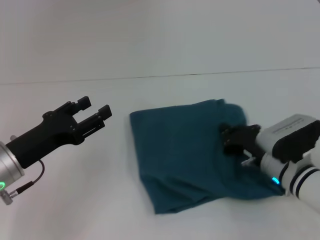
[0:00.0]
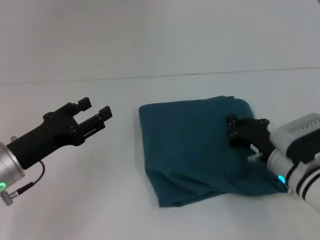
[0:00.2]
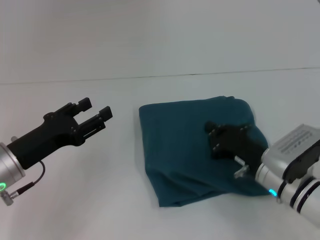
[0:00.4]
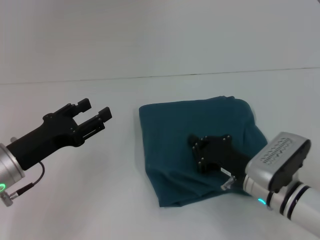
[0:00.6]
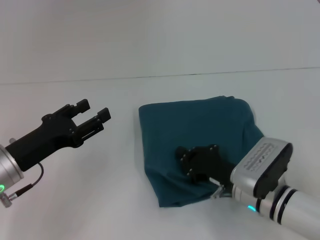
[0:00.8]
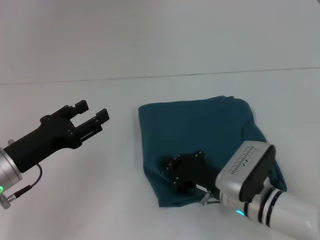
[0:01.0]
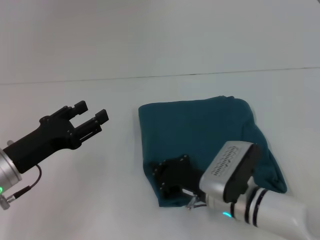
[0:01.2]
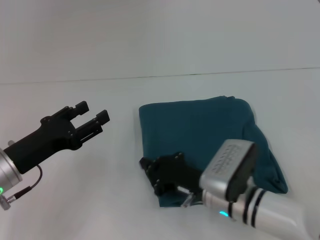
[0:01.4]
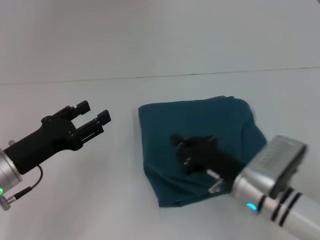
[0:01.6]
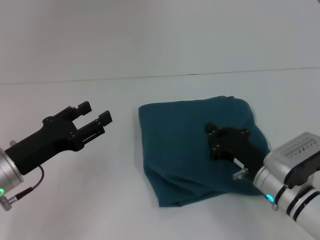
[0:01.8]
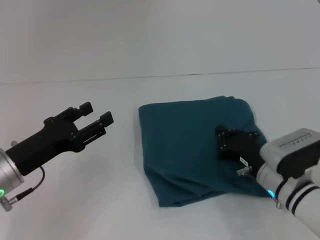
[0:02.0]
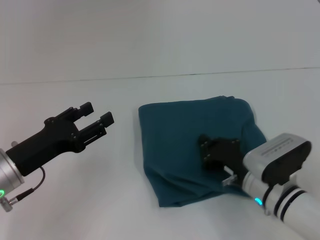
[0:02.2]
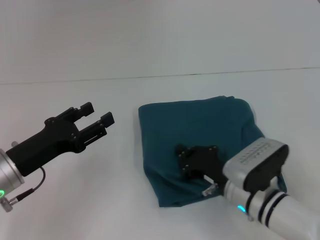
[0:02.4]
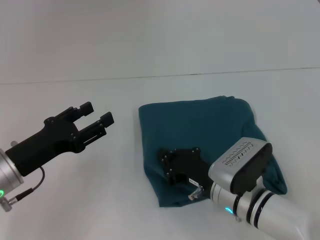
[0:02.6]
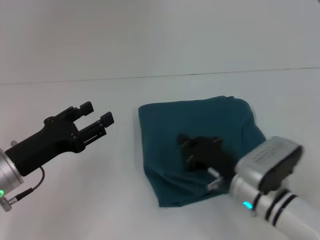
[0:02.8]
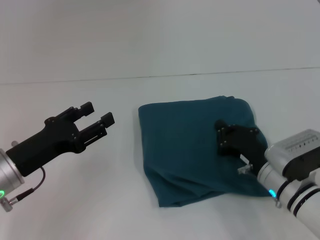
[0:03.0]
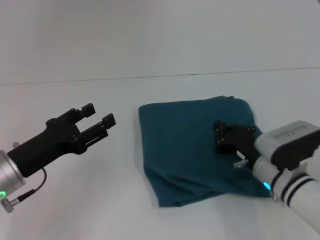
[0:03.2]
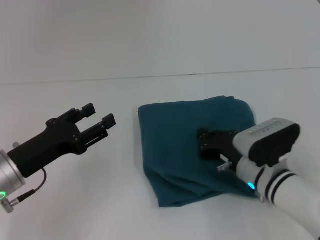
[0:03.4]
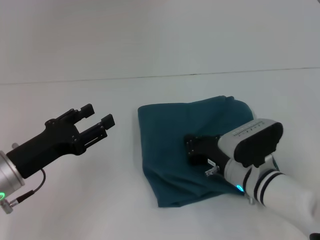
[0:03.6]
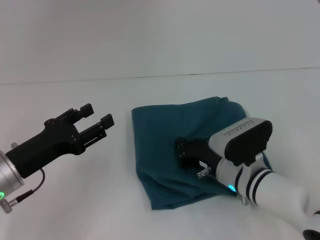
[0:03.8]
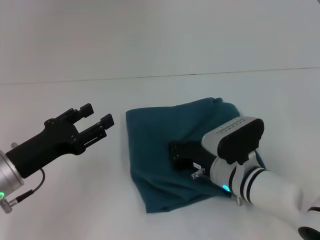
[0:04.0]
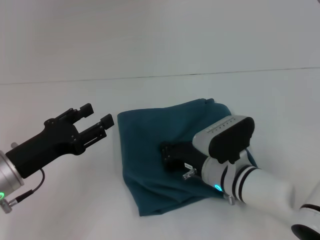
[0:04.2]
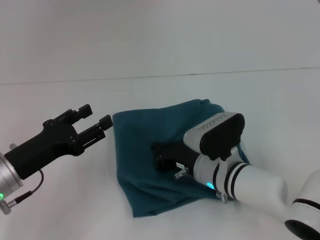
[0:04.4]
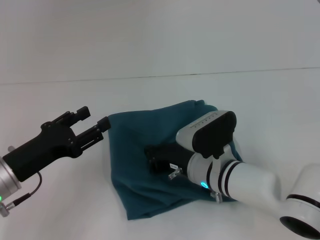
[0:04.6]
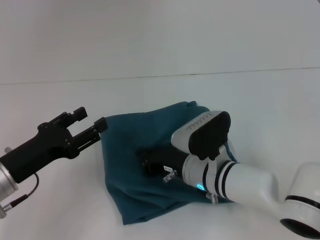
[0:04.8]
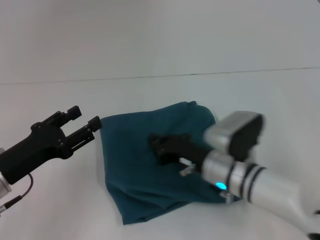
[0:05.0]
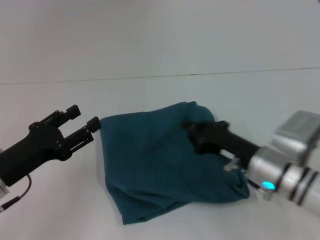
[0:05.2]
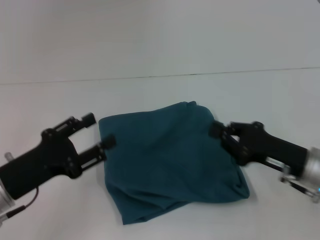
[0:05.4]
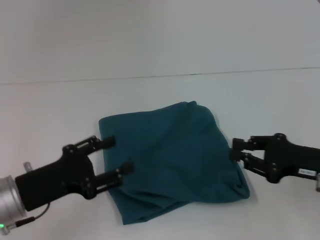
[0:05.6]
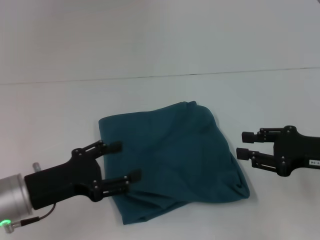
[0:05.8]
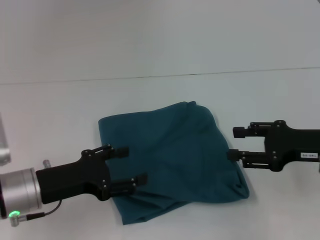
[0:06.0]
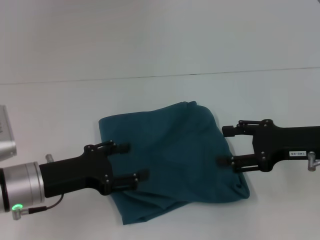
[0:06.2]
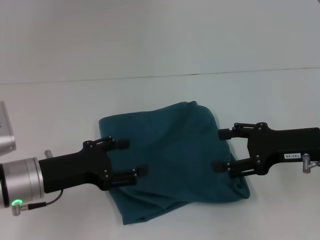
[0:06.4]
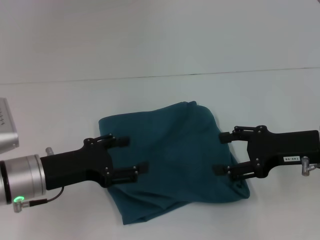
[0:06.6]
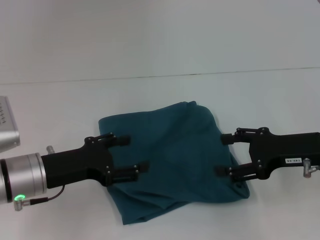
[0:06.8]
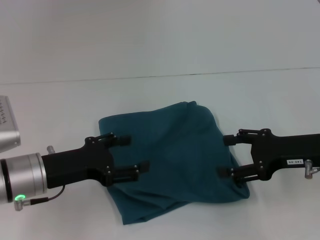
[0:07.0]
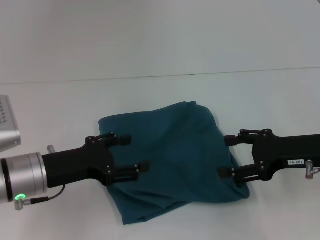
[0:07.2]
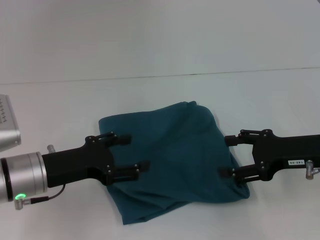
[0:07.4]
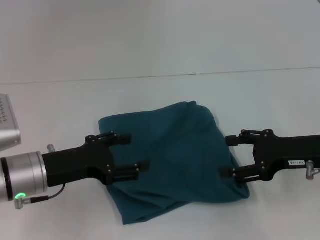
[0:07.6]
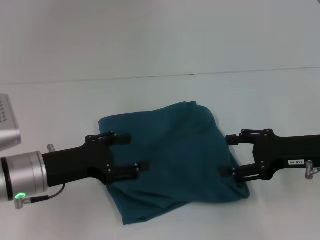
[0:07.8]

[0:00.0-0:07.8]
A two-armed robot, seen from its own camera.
0:00.0 to 0:01.6: The right gripper is displaced to the left by some 5 cm.
0:01.6 to 0:03.2: The right gripper moves left and right over about 5 cm, changing direction 2 times.
0:03.2 to 0:04.6: The right gripper moves to the left, some 10 cm.
0:04.6 to 0:06.2: The right gripper travels to the right and upward by some 20 cm, and opens.
0:06.2 to 0:07.8: Neither gripper changes place.

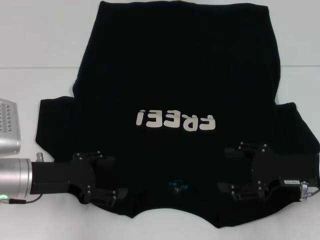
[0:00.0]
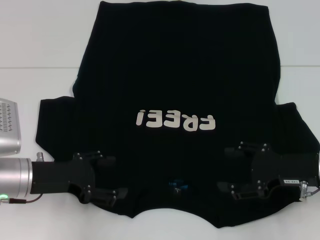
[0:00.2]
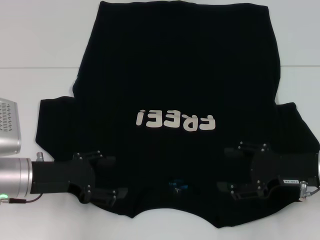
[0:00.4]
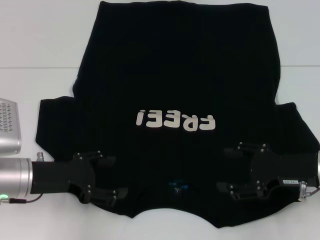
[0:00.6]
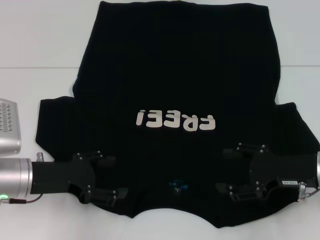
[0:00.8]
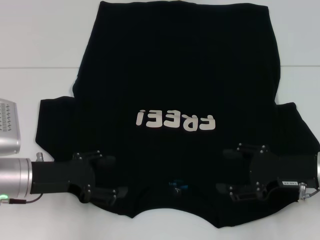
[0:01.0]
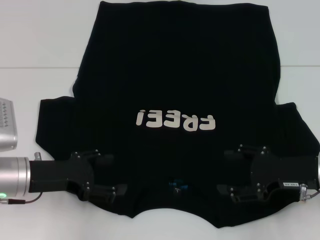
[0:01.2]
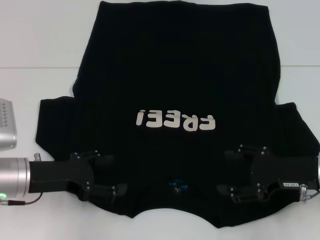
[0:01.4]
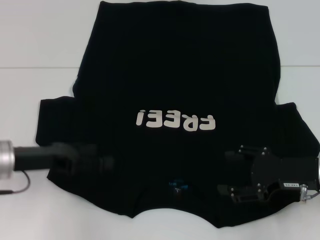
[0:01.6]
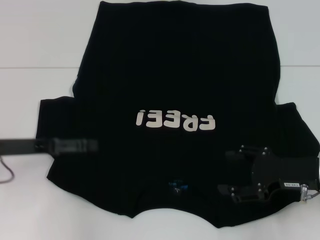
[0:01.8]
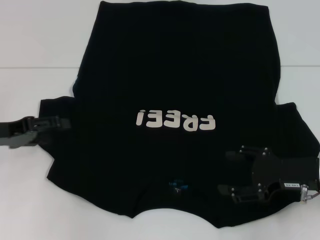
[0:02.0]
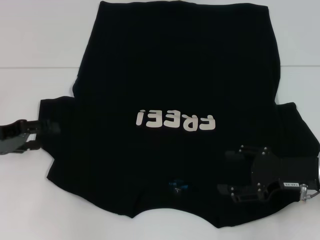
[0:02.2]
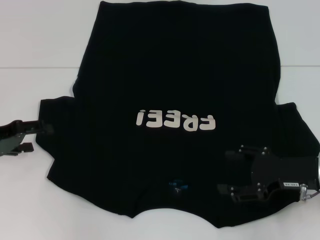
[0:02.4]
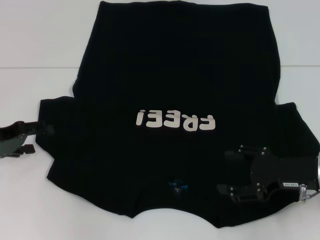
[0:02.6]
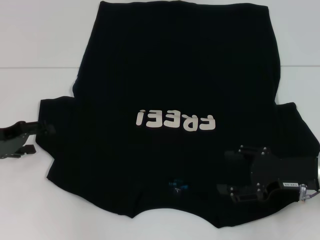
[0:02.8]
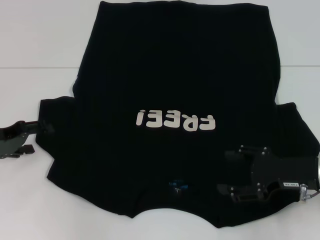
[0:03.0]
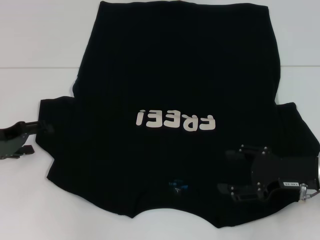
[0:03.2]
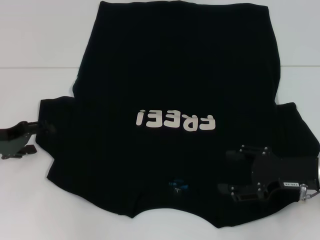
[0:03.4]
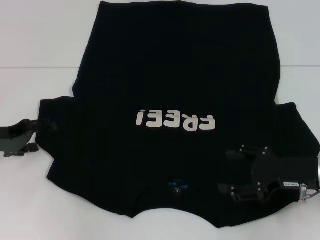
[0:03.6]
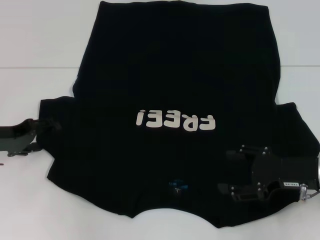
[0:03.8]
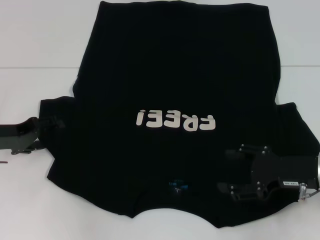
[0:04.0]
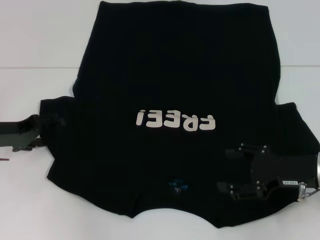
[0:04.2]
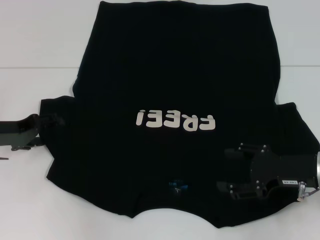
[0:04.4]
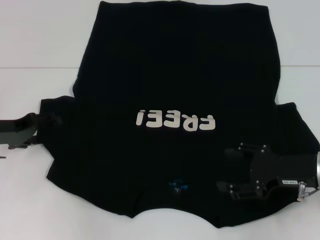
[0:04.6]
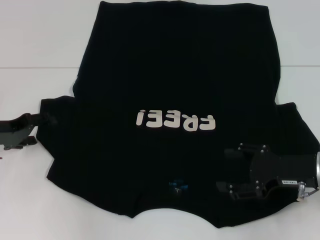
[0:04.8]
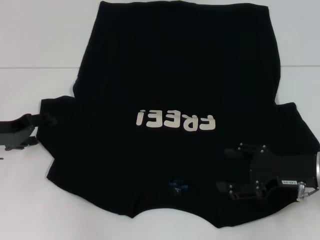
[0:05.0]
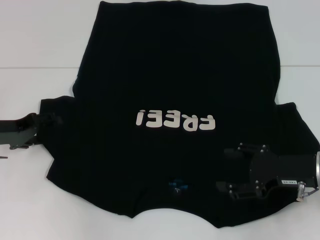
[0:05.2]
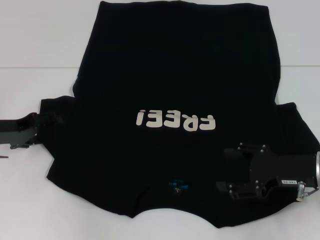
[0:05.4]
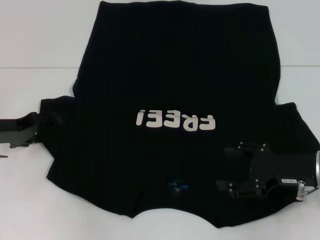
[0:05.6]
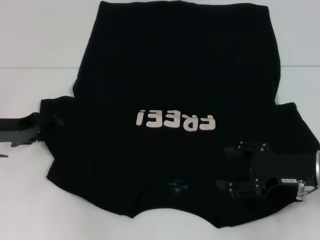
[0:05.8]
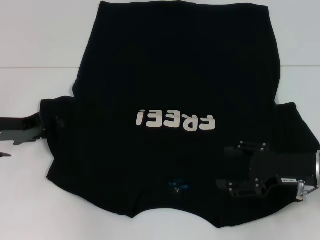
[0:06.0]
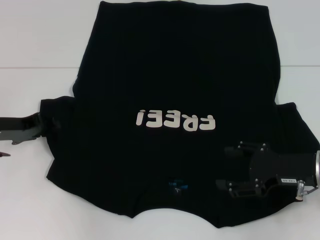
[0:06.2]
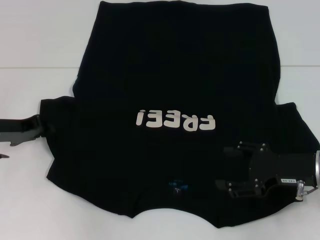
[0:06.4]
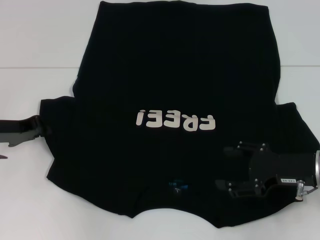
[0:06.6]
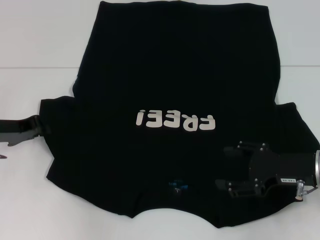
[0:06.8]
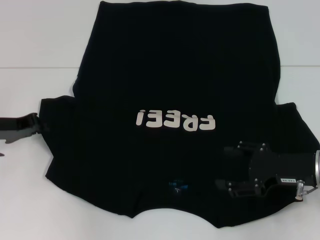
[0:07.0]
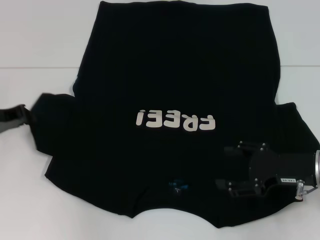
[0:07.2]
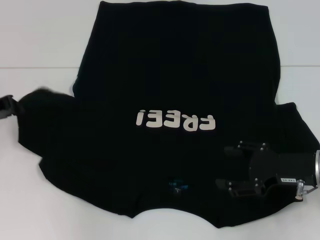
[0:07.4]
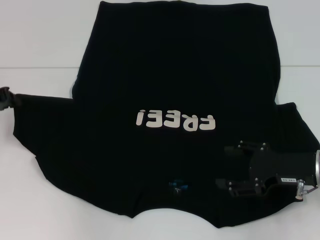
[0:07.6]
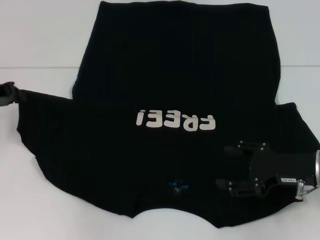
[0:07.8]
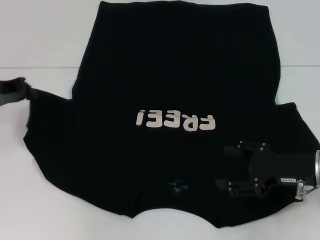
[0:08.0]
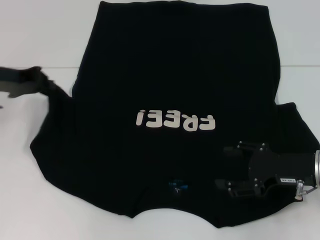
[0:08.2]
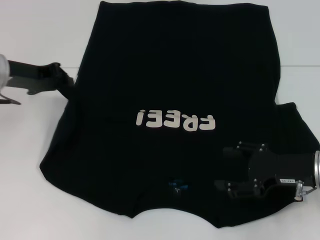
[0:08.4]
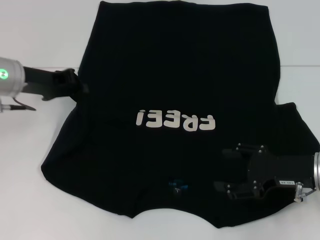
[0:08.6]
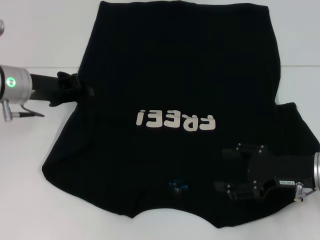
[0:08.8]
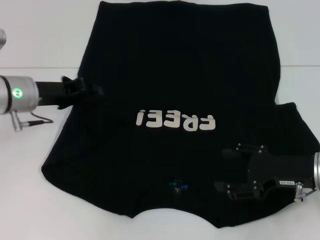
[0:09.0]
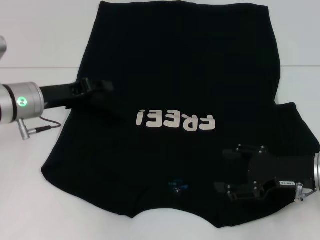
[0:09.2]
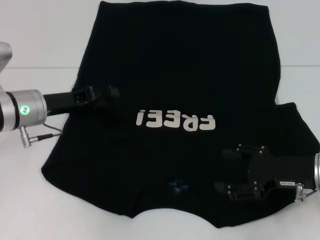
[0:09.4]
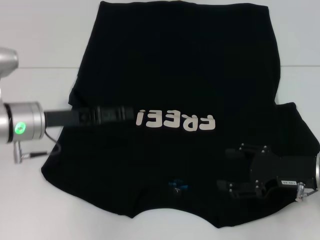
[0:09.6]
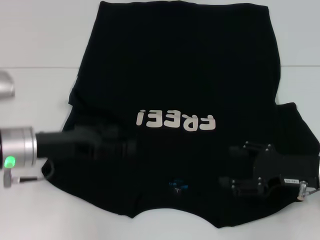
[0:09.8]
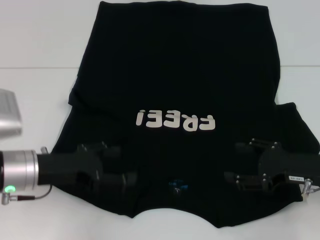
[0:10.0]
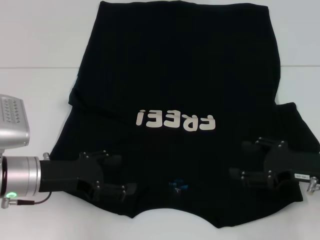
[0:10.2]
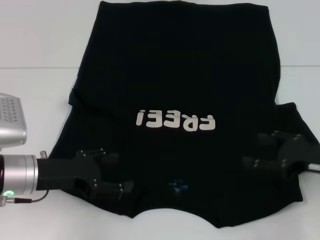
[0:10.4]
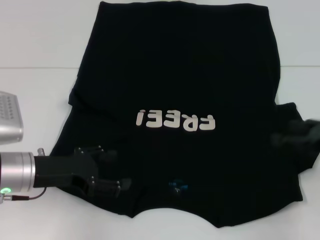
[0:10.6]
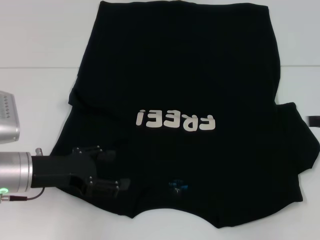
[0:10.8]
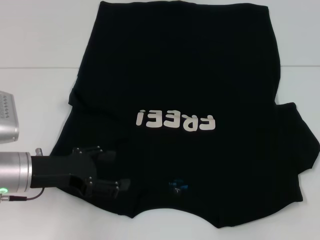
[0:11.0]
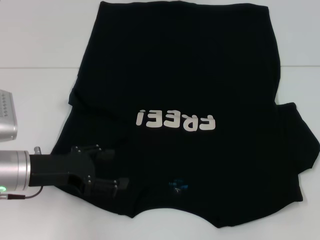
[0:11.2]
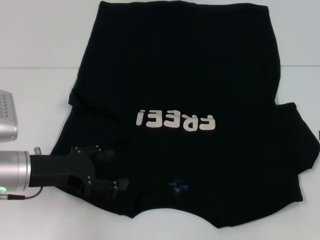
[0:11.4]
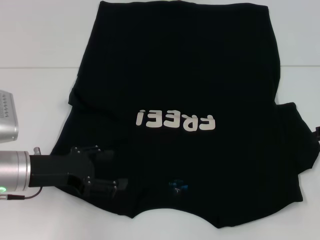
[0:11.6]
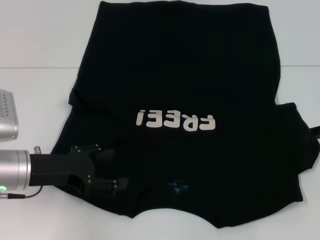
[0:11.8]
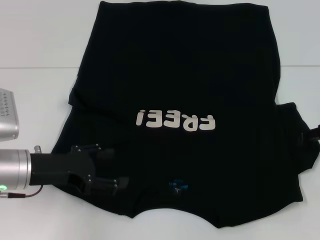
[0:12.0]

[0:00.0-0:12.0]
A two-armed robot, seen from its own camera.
Step, 0:00.0 to 0:09.4: Fold the bottom left sleeve with your left hand.
0:01.6 to 0:03.0: The left gripper goes about 5 cm to the left.
0:03.0 to 0:06.0: There are only small adjustments of the grippers.
0:06.0 to 0:07.6: The left gripper ends up about 5 cm from where it was, and closes.
0:07.6 to 0:09.0: The left gripper travels to the right by some 10 cm.
0:09.0 to 0:10.4: The left gripper heads backward, covering some 10 cm, and opens up.
0:10.4 to 0:12.0: The right gripper heads forward, covering roughly 10 cm.

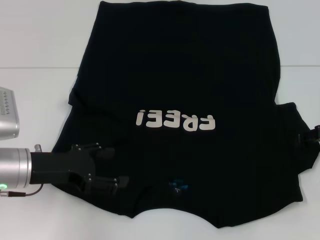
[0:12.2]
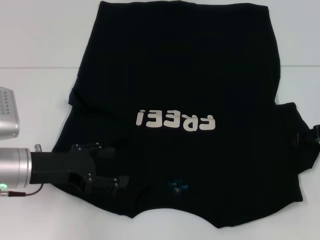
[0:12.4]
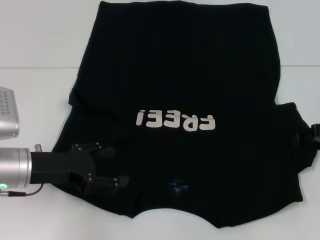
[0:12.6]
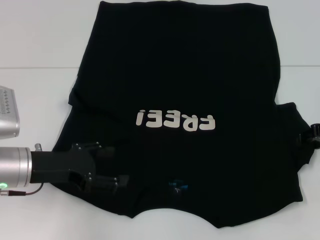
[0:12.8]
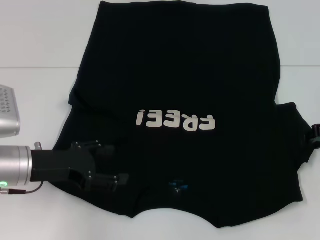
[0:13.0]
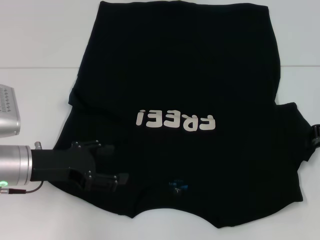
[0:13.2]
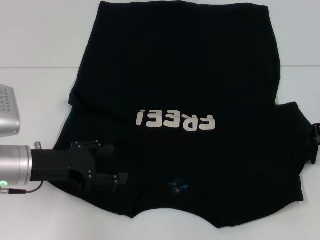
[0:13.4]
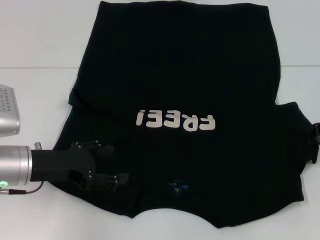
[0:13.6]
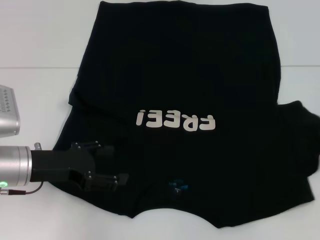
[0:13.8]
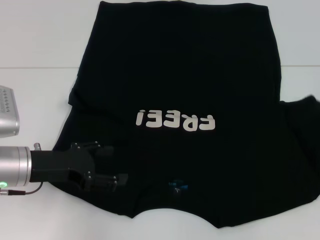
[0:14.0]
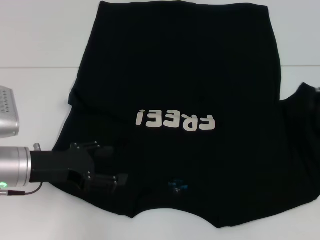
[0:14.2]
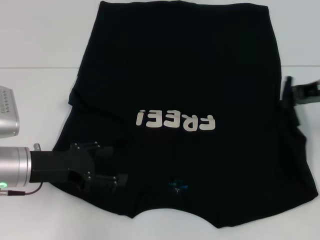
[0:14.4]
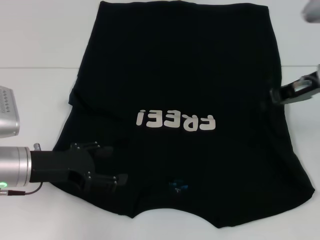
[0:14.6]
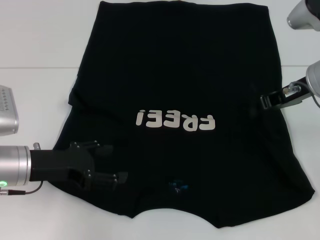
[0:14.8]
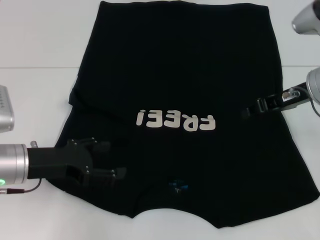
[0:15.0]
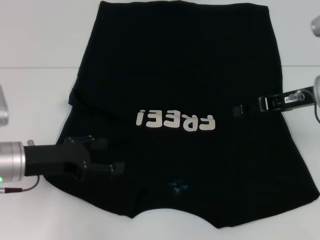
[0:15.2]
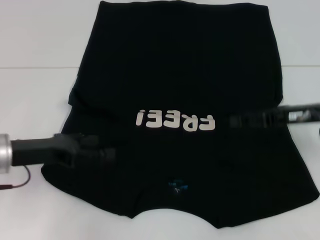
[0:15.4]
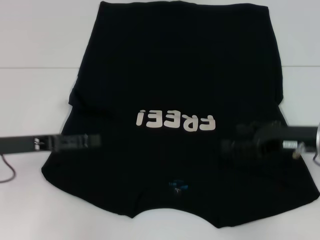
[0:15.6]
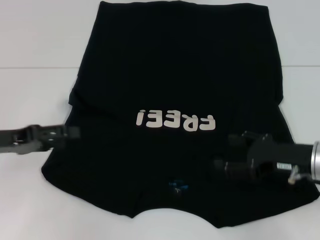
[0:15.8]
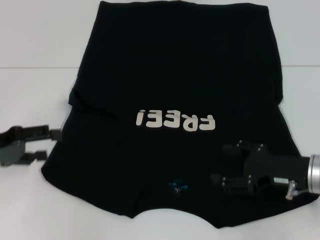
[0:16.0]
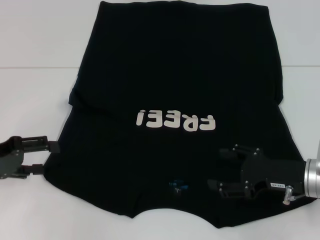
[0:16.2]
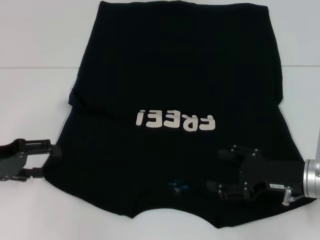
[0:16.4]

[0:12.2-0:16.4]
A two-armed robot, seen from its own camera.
Step, 0:12.2 to 0:15.2: Fold the bottom right sleeve with your right hand.
0:12.2 to 0:13.6: The right gripper closes.
0:13.6 to 0:15.0: The right gripper shifts about 10 cm to the left.
0:15.0 to 0:16.4: The left gripper is displaced to the left by some 10 cm. Meanwhile the right gripper shifts about 15 cm downward and backward, and opens.
